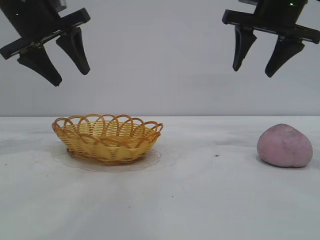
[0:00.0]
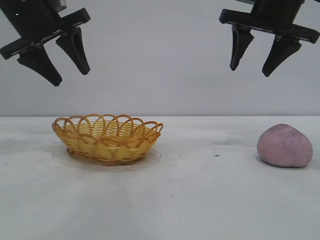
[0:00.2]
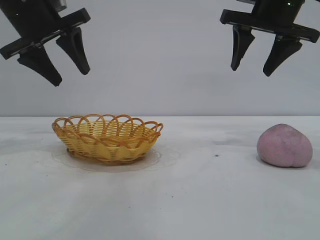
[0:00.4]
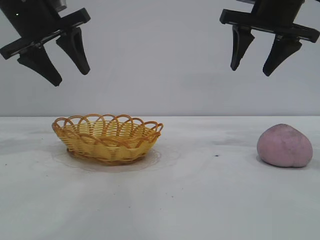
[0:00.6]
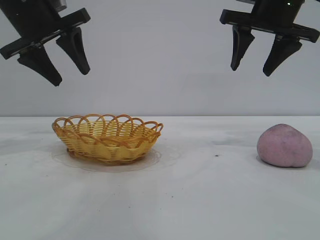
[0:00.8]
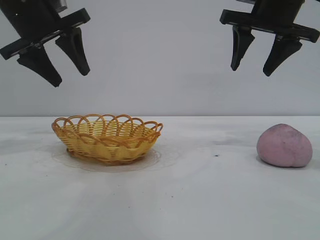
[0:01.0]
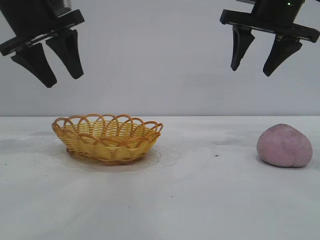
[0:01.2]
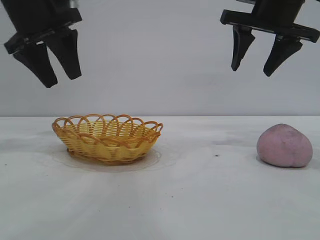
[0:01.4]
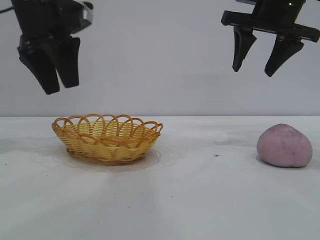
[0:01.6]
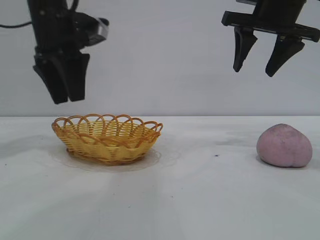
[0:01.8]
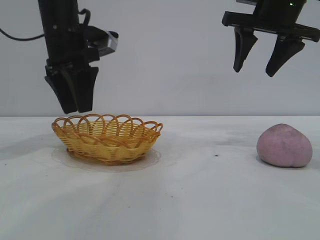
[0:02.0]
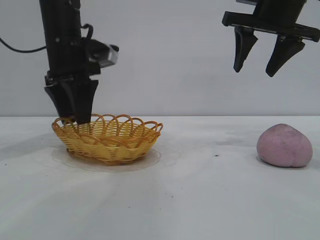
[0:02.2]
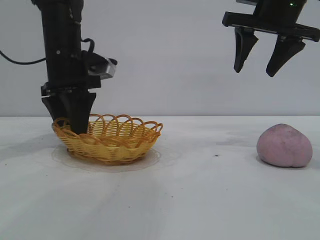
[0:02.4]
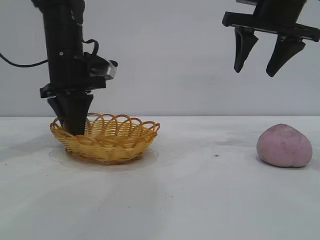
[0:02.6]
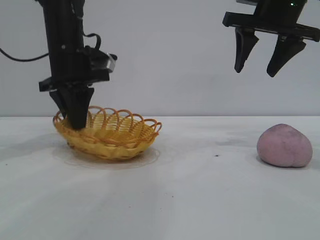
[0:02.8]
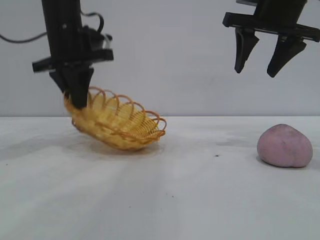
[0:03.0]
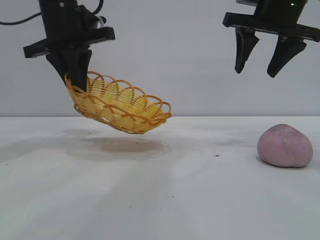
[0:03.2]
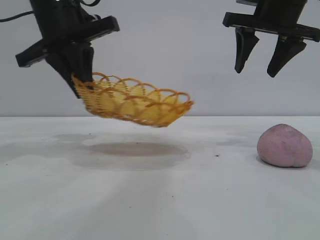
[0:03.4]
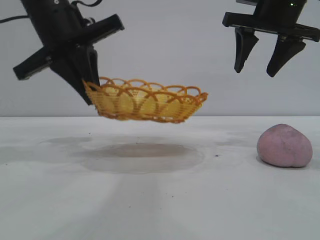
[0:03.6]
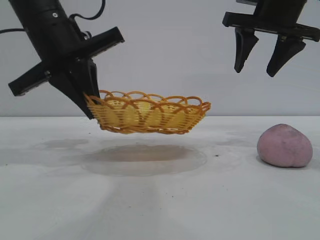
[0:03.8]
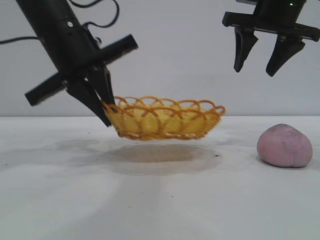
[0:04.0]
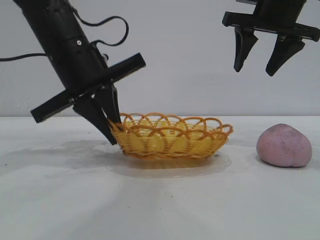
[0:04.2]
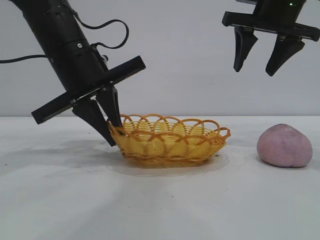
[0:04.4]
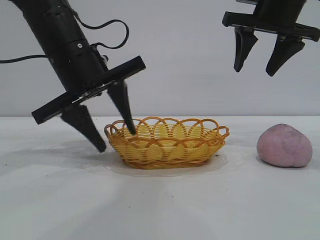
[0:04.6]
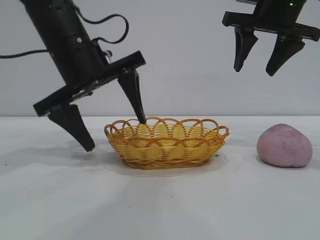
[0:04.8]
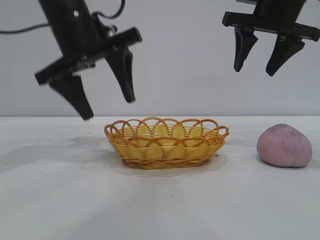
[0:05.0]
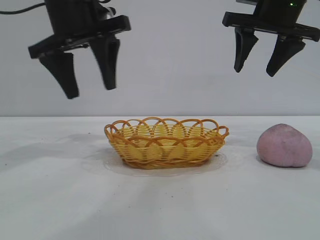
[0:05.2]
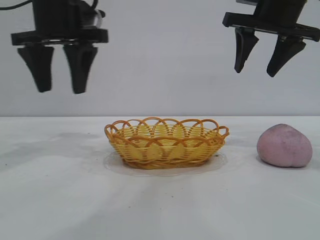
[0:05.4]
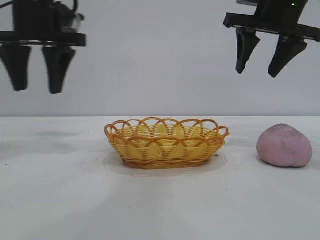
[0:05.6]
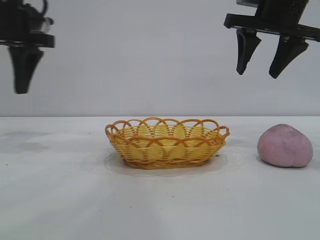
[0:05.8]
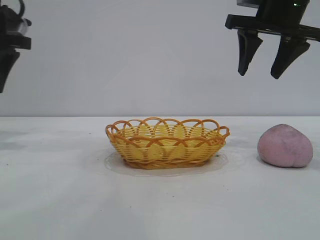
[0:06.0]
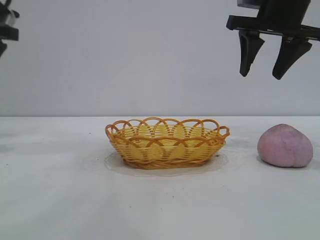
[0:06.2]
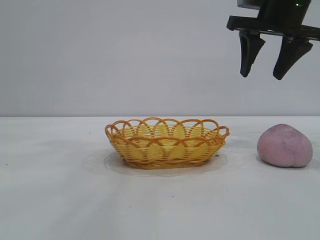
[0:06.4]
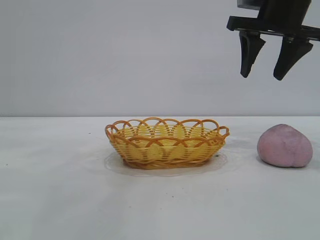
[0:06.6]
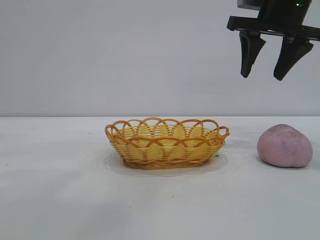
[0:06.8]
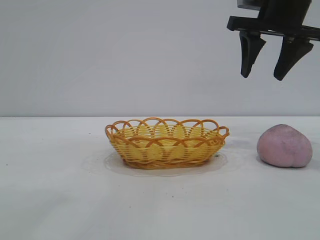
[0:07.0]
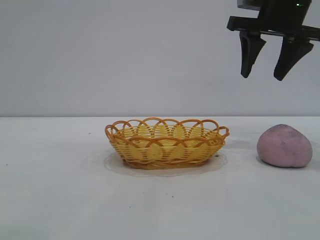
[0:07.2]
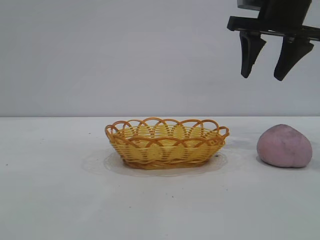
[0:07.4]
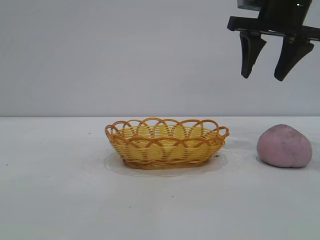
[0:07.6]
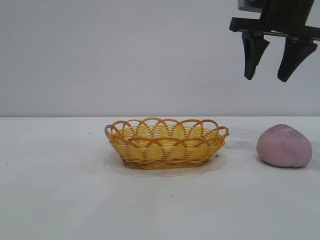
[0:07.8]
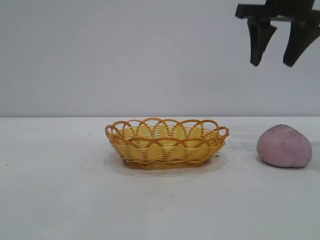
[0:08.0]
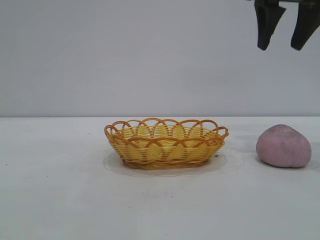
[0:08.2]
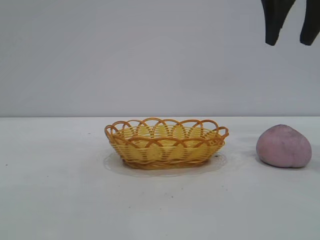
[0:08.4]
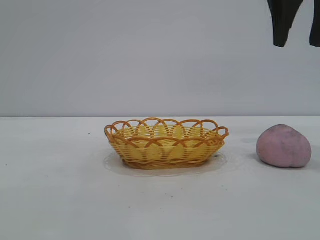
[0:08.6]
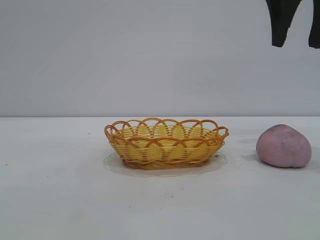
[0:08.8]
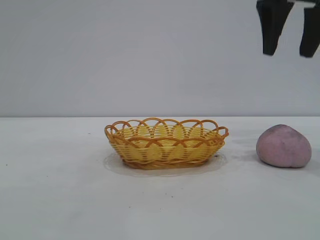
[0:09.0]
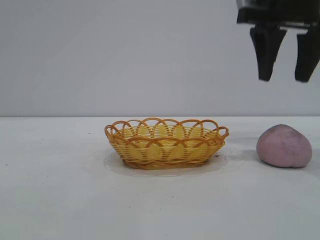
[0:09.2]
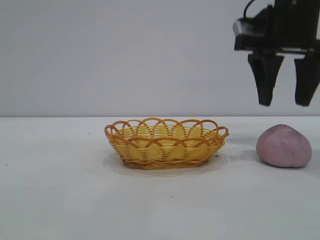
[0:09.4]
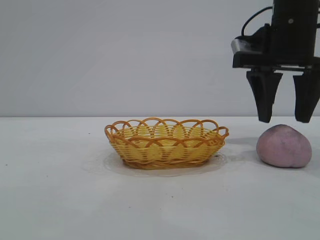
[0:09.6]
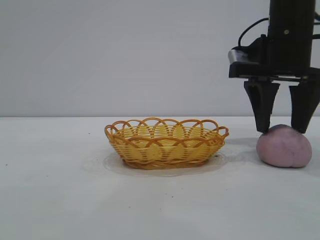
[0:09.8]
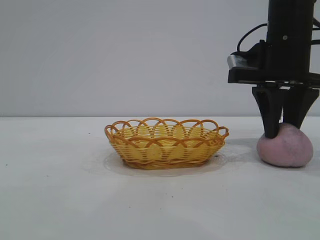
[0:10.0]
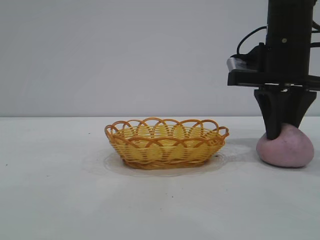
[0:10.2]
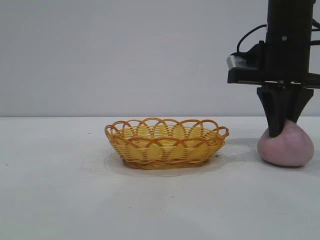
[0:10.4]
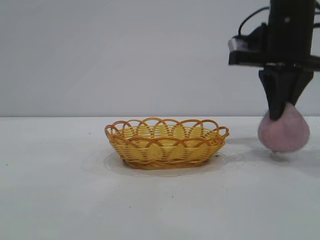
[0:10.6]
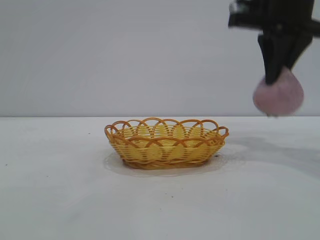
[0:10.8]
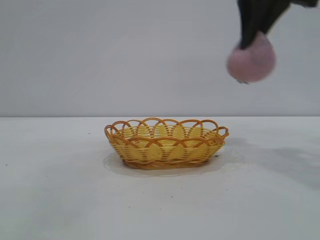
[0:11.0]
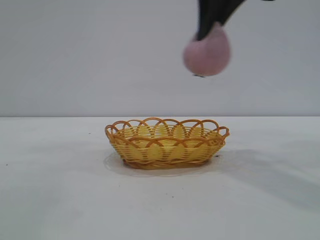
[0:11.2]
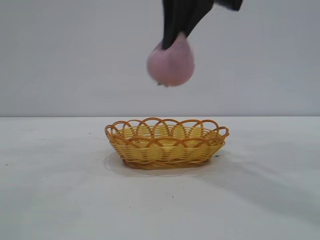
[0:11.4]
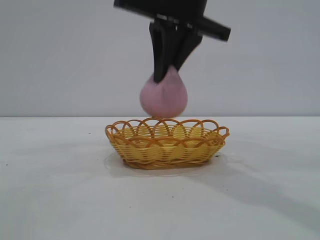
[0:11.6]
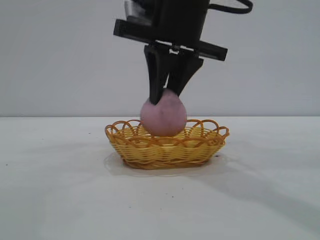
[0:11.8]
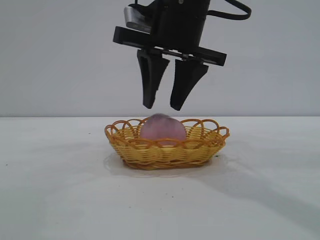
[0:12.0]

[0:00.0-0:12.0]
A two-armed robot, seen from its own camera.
Task of the whole recording: pick up the peach and put it into the basket.
Step, 0:00.0 to 0:04.8: Move the basket to the center of view.
Step, 0:05.0 to 0:10.8: Pick up the peach.
